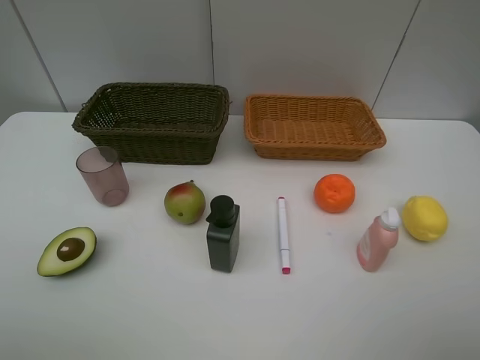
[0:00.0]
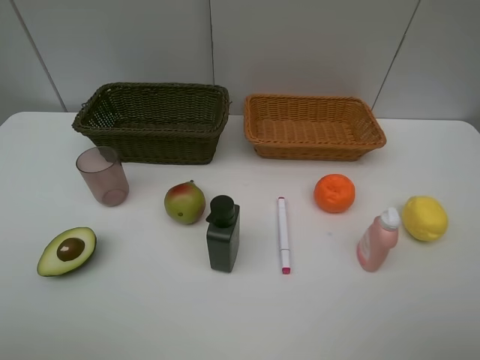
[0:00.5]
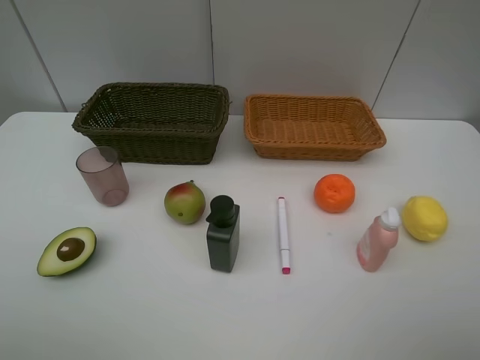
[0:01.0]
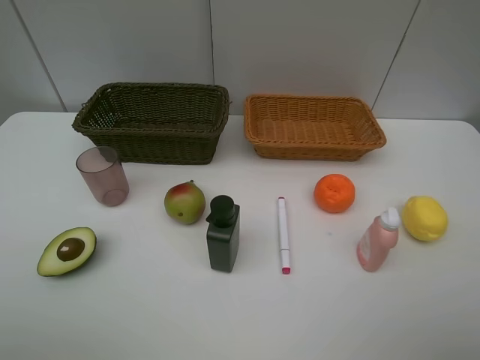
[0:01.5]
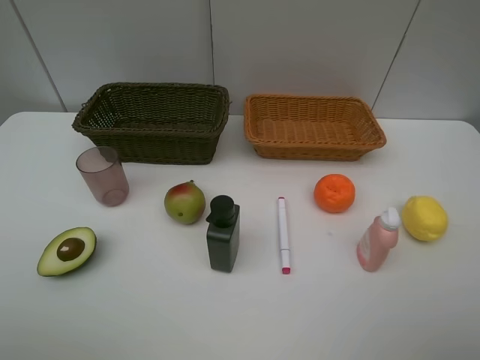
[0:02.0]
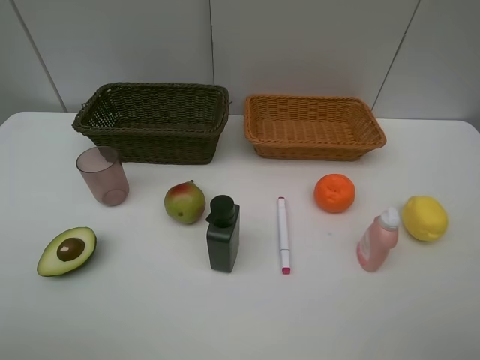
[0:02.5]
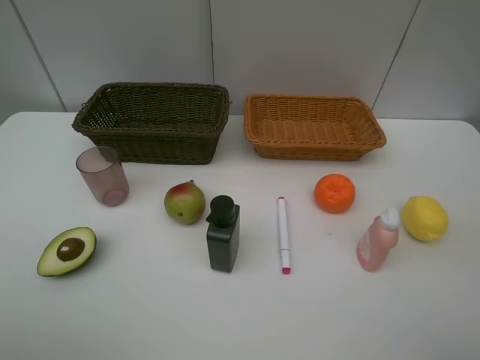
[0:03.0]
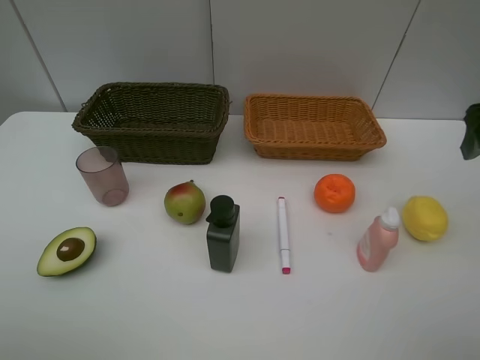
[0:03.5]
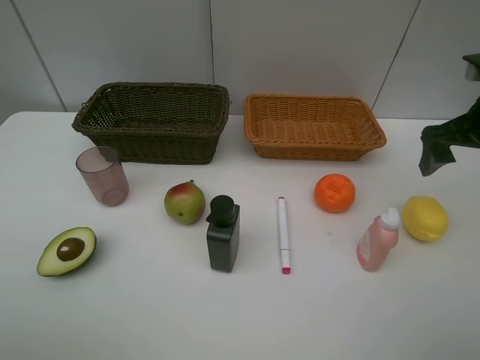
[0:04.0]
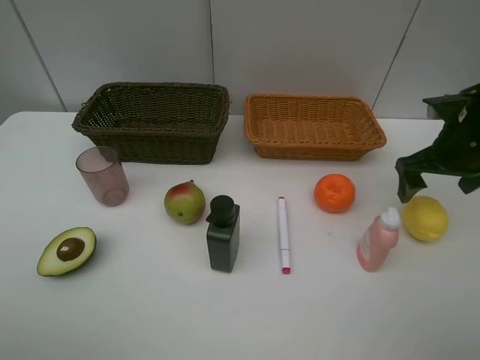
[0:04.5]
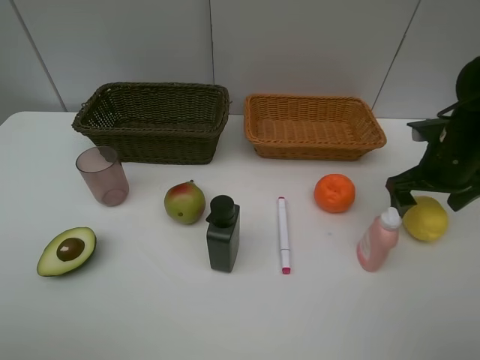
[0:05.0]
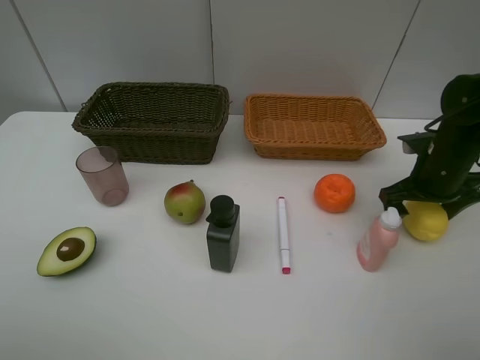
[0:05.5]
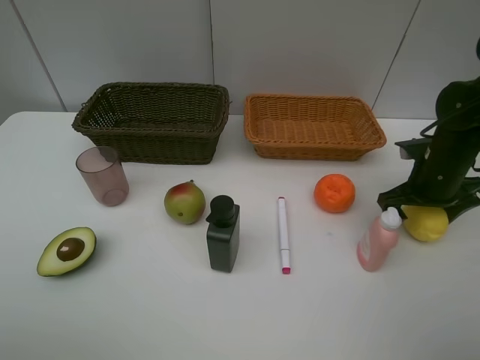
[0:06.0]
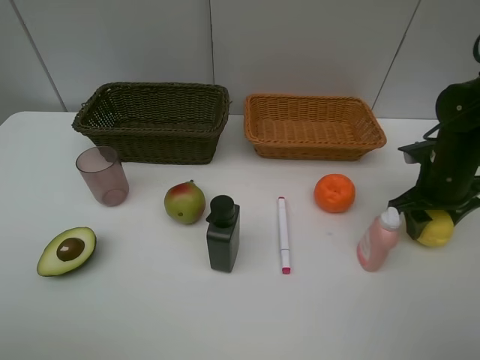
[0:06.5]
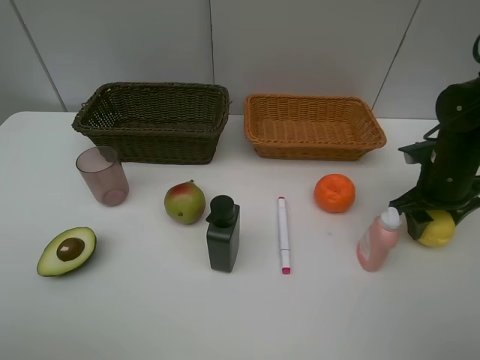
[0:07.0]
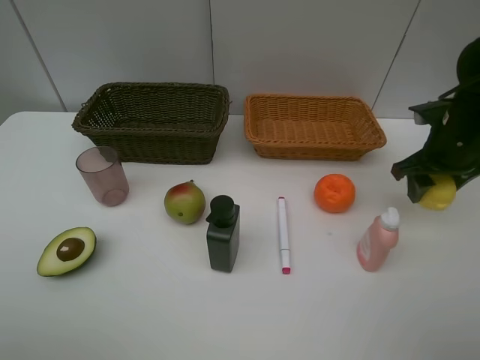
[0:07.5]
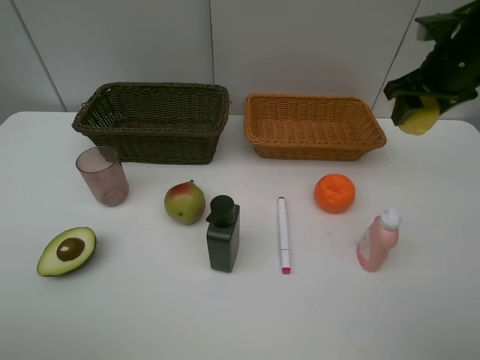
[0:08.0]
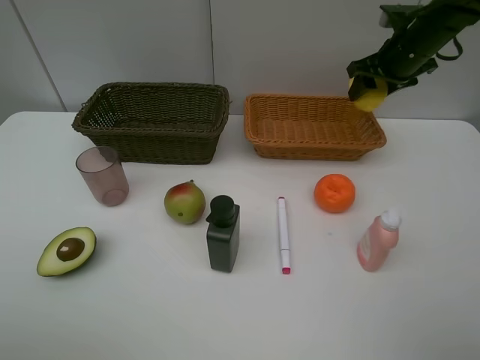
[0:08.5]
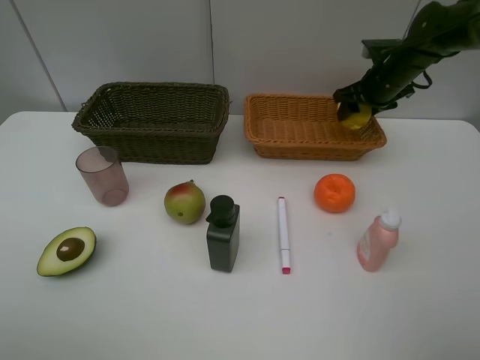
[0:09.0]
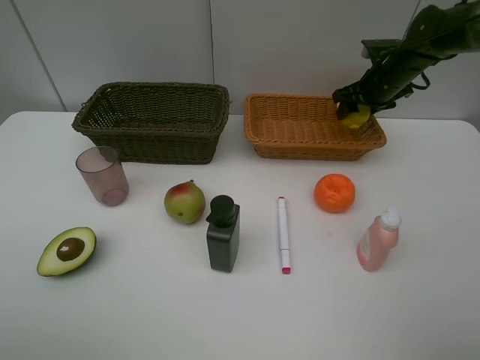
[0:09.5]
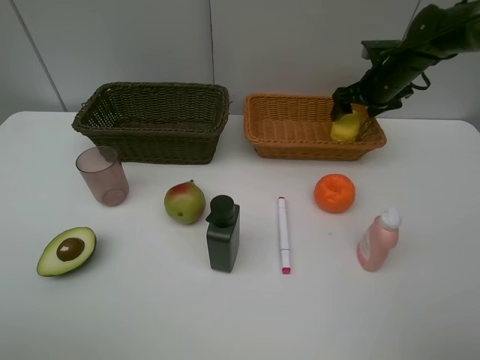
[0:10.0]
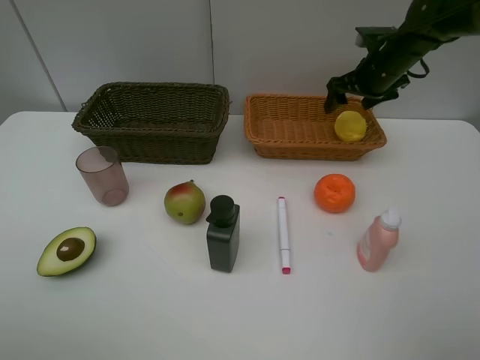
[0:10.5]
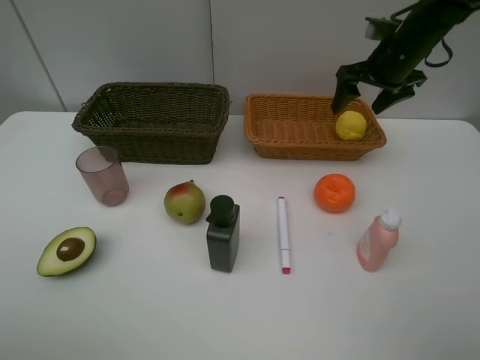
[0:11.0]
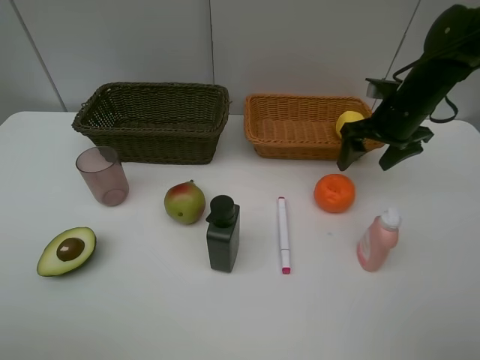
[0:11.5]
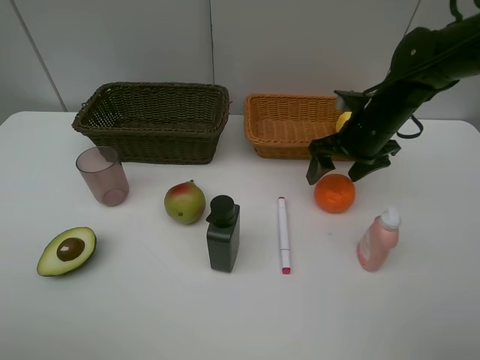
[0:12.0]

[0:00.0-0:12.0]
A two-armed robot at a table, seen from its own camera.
Task of the whole recording: Place multiple objects separately in different baskets.
Step, 0:00.0 to 0:07.5: Pick up the lemon with right gripper.
Step, 0:08.0 to 0:10.5: Place the lemon in the light basket with right gripper.
0:00.0 to 0:02.0: Both grippers stay about where they are.
0:02.0 to 0:04.0: The right gripper travels forward by roughly 30 cm.
0:04.0 to 0:06.0: The right gripper heads downward, covering about 10 cm.
0:06.0 to 0:08.0: The right gripper shifts about 15 cm upward and forward, and closes.
0:08.0 to 0:10.0: The right gripper goes approximately 15 cm forward and downward.
0:10.0 to 0:12.0: The right gripper shifts approximately 15 cm backward and to the left.

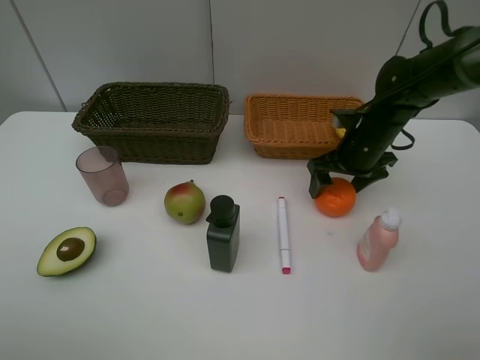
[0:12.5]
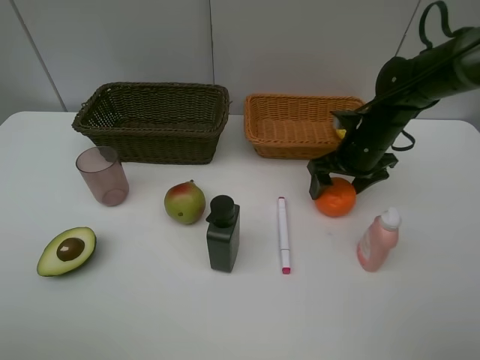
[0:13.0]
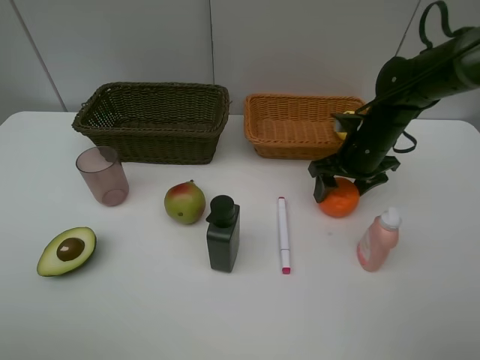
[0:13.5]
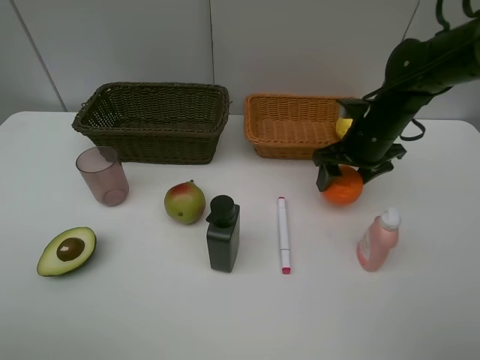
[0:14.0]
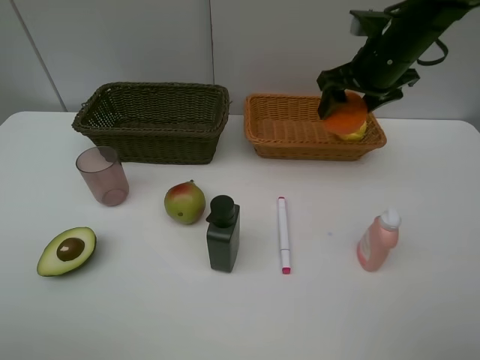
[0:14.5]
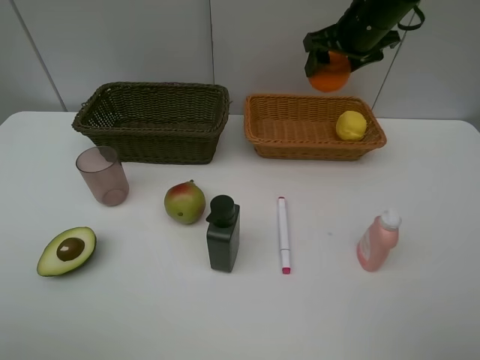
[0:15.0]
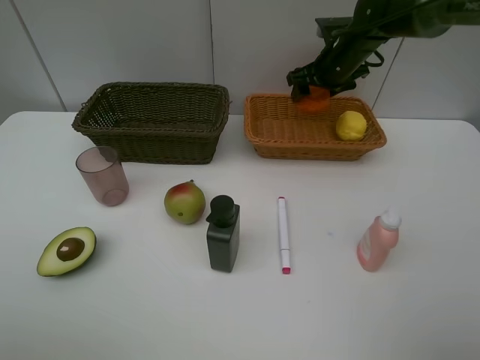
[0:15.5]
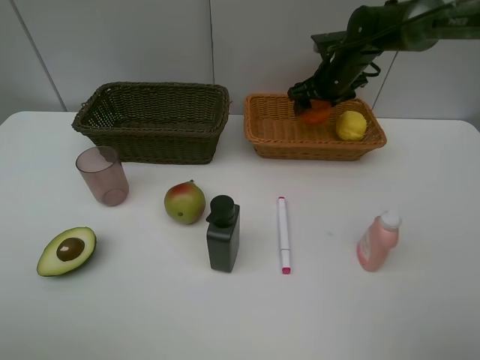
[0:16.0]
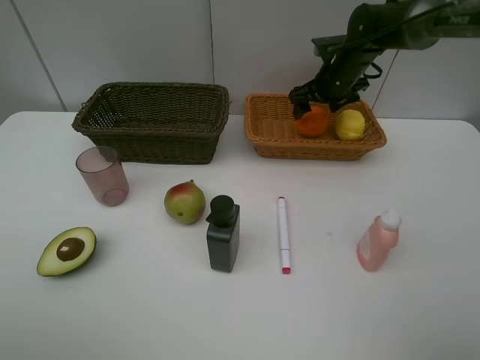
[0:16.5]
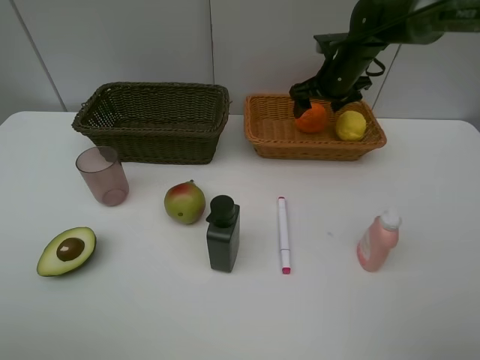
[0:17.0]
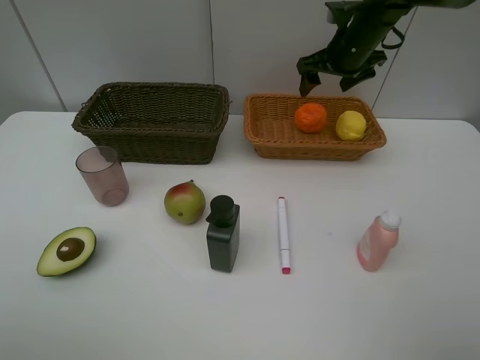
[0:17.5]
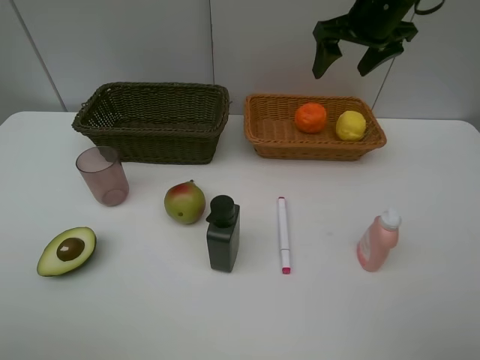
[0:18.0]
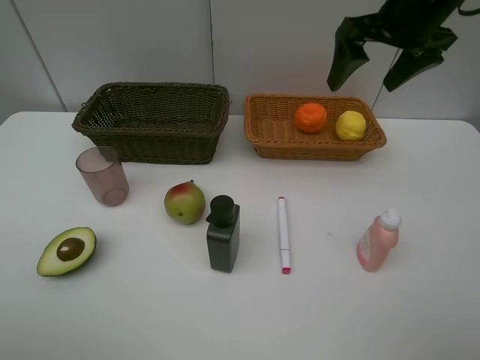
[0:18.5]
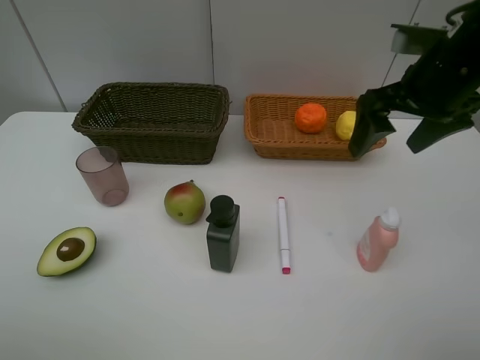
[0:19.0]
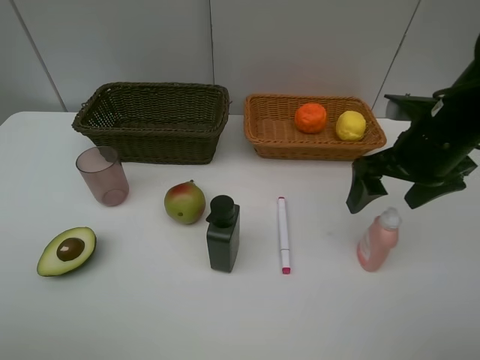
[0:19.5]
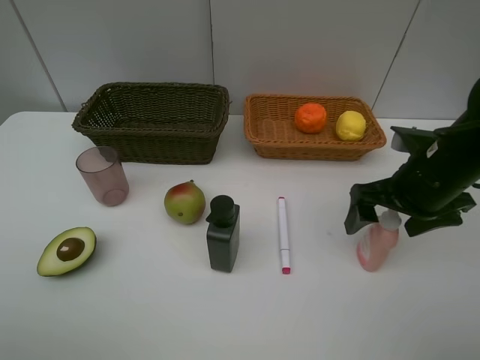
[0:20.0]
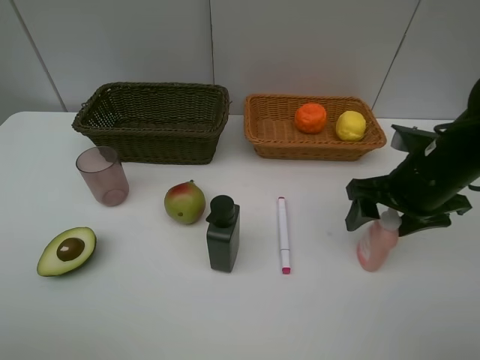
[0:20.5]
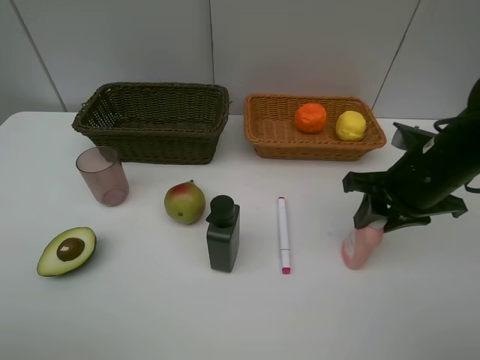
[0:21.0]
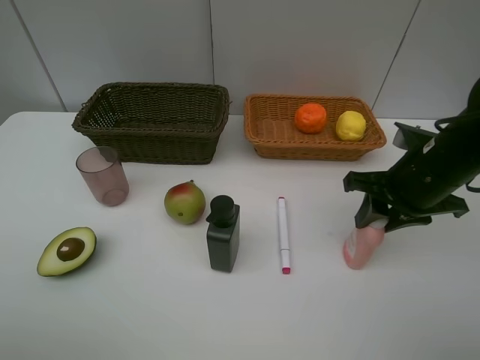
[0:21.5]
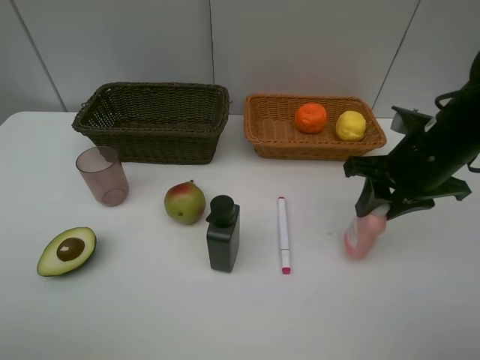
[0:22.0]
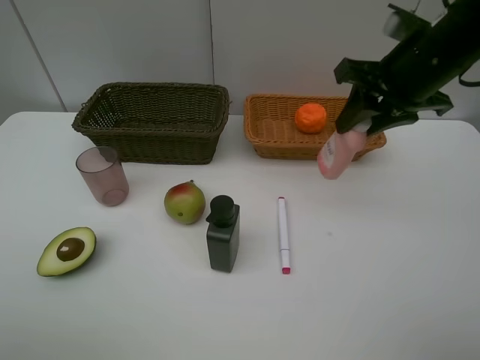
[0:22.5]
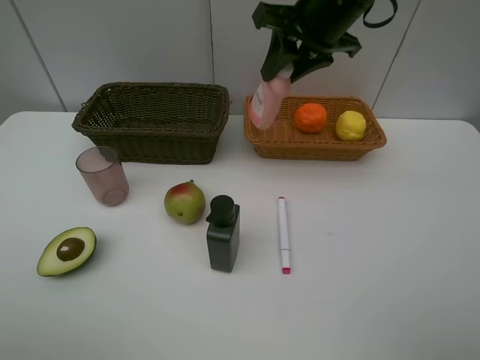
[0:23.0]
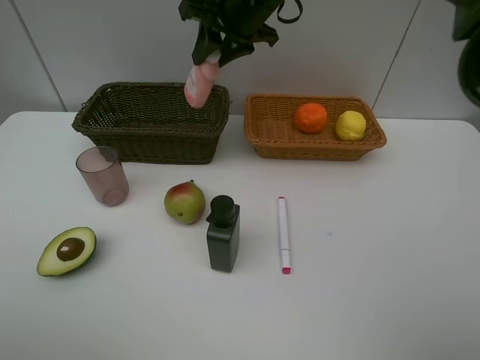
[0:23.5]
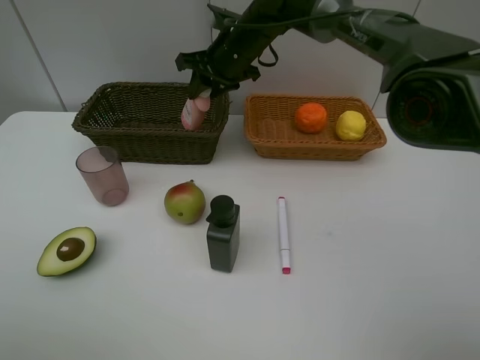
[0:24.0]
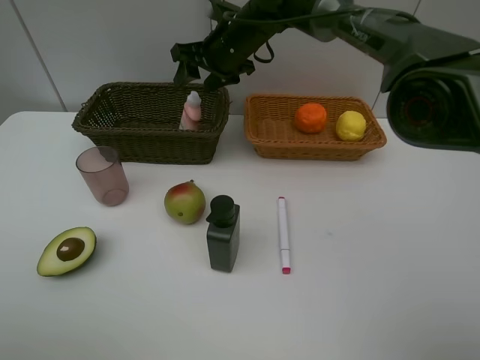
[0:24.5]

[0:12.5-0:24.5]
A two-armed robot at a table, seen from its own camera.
Task of the whole recording: Place multiple objects separately in different baskets.
Step, 0:14.5 to 0:17.0: Place the orange in the light basket with right gripper.
Step, 0:17.5 to 0:22.0: Pick up the laundry detergent with right gripper.
0:12.5 to 0:14.5: The right gripper goes some 15 cm upward.
0:14.5 to 0:16.5: The right gripper goes approximately 15 cm forward and downward.
0:16.5 to 0:18.5: The right gripper shifts about 20 cm upward and backward.
0:18.5 to 0:20.5: The right gripper goes some 20 cm downward and backward.
0:20.5 to 0:22.5: The right gripper is displaced upward and forward by roughly 15 cm, and closes.
0:22.5 to 0:24.5: The right gripper is displaced to the left and forward by roughly 25 cm, and opens up.

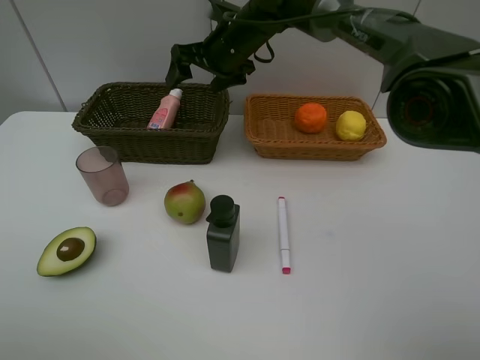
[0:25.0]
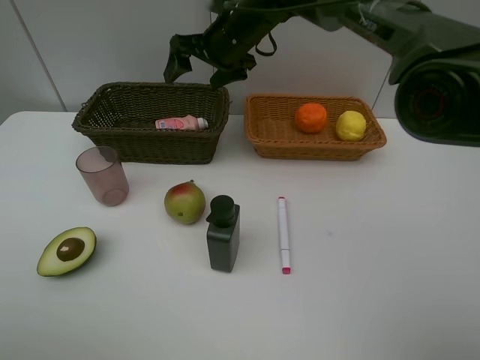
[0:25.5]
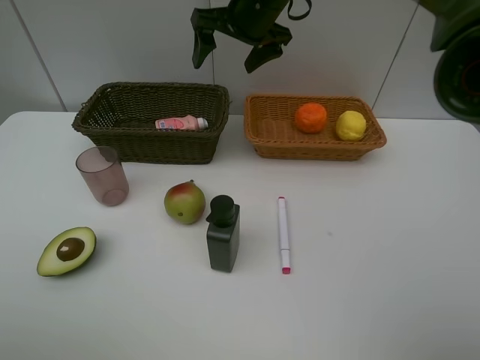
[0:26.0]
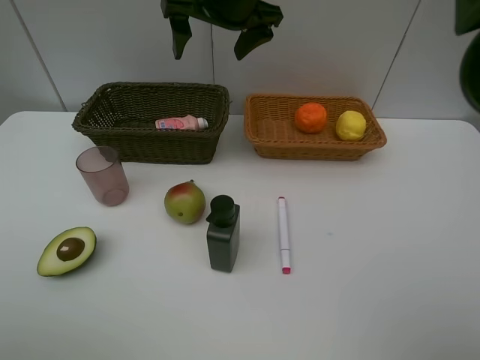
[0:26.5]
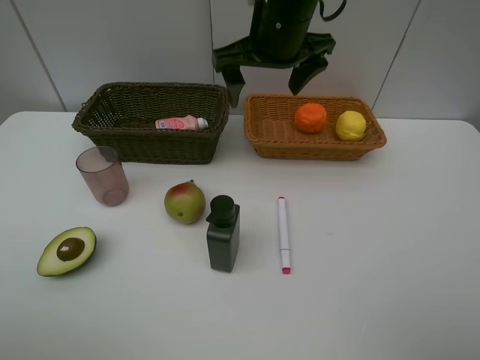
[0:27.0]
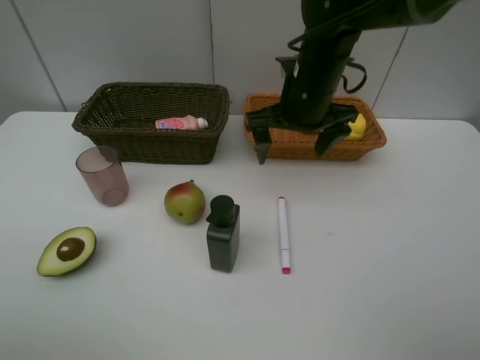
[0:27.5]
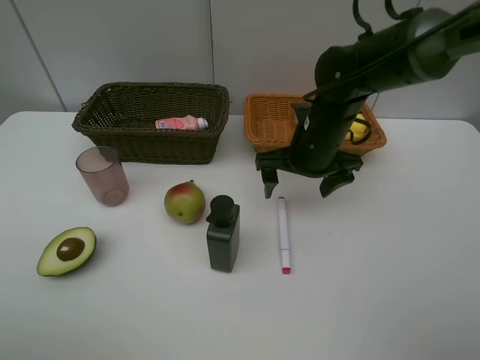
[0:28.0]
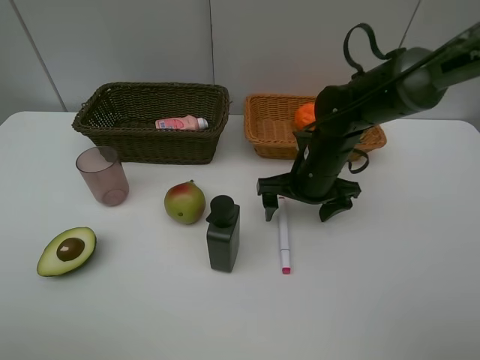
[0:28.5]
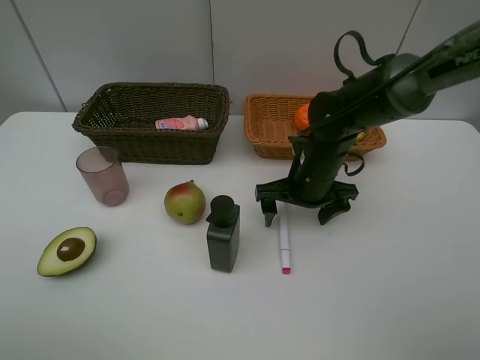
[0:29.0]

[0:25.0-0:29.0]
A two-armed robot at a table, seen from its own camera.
Task of the whole recording: Place multiple objects separately in different baskets.
0:25.0 to 0:27.0: The right gripper shifts about 15 cm backward, upward and to the right.
0:27.0 to 0:29.0: The right gripper moves downward, approximately 20 cm.
